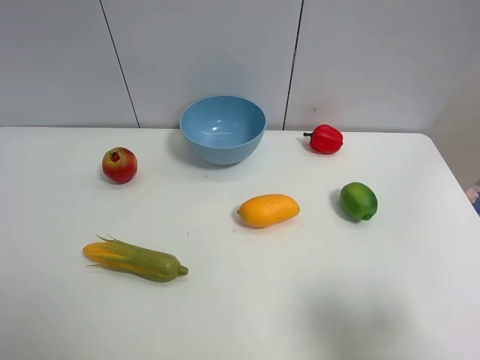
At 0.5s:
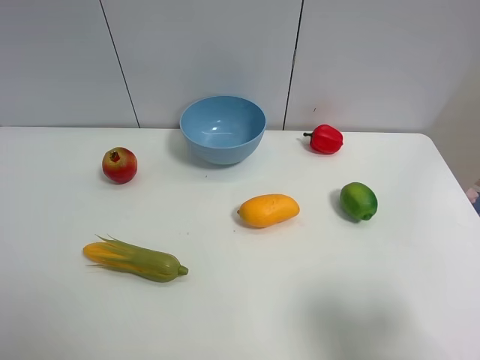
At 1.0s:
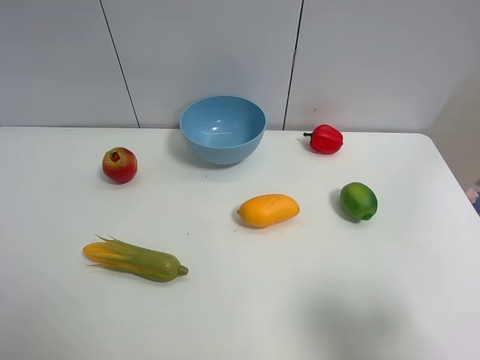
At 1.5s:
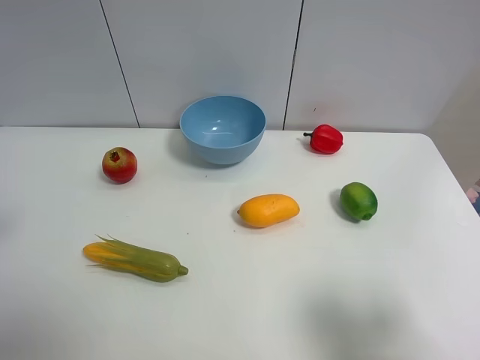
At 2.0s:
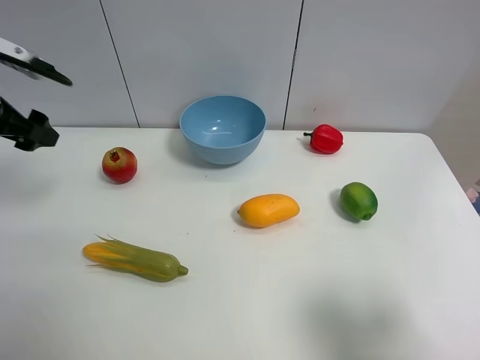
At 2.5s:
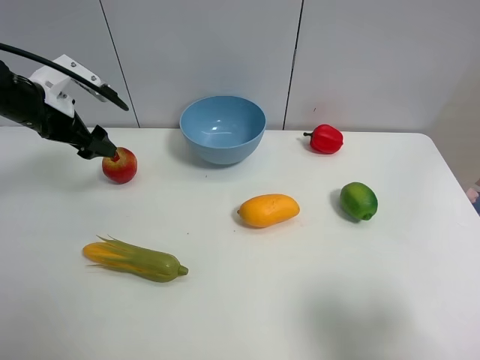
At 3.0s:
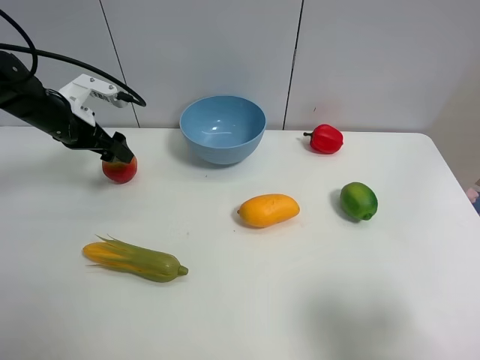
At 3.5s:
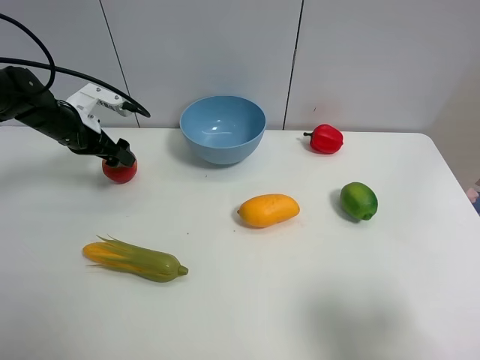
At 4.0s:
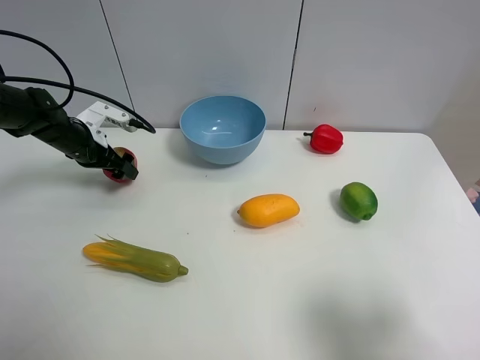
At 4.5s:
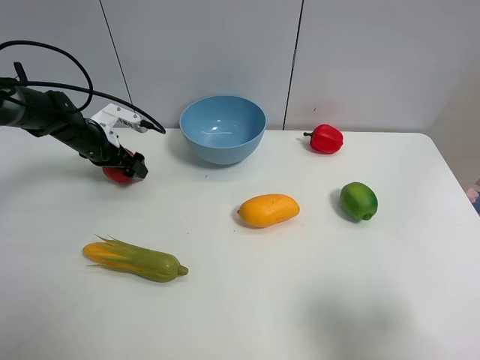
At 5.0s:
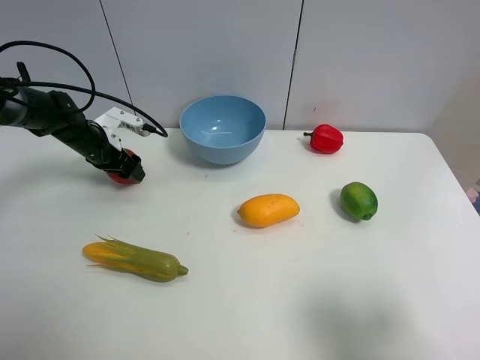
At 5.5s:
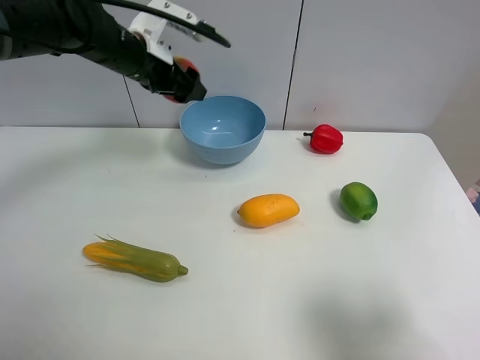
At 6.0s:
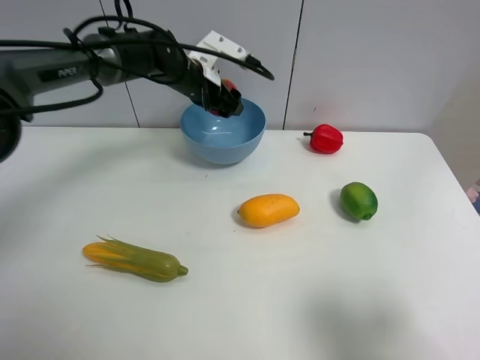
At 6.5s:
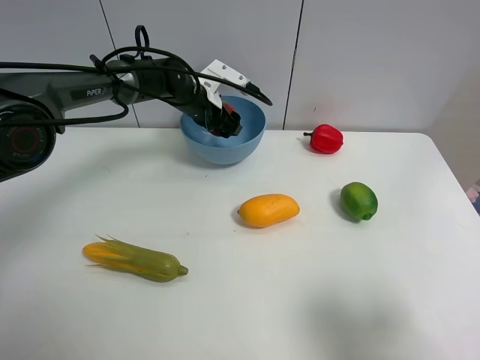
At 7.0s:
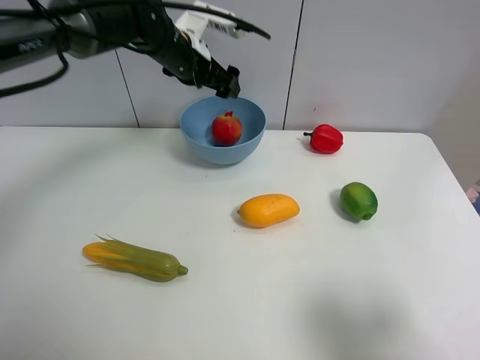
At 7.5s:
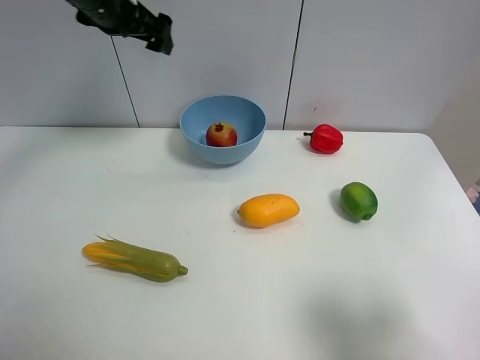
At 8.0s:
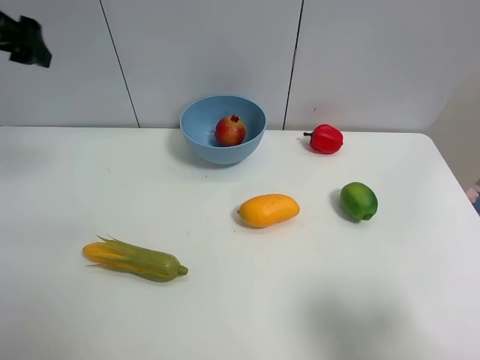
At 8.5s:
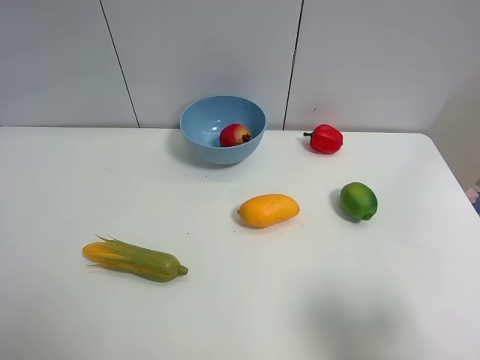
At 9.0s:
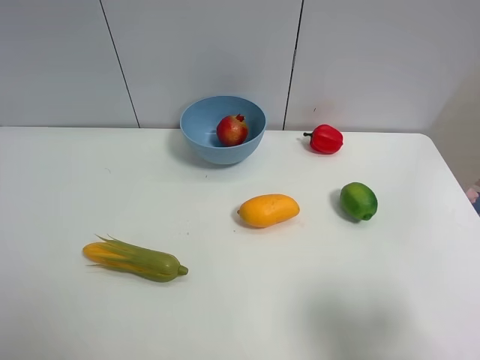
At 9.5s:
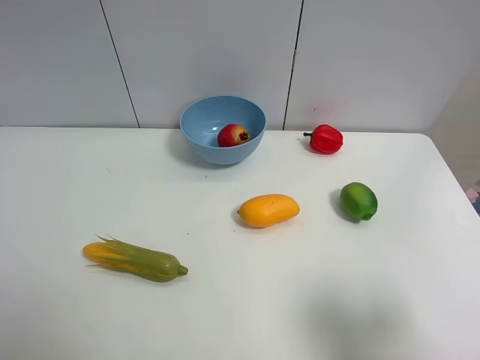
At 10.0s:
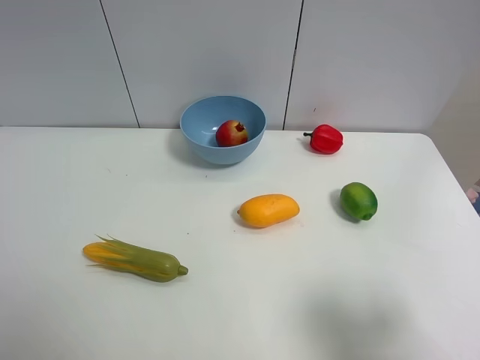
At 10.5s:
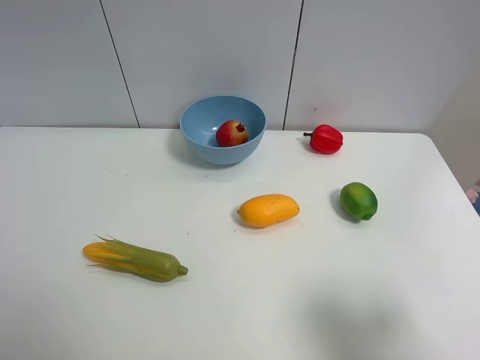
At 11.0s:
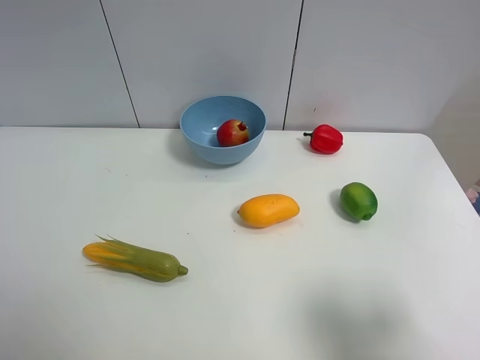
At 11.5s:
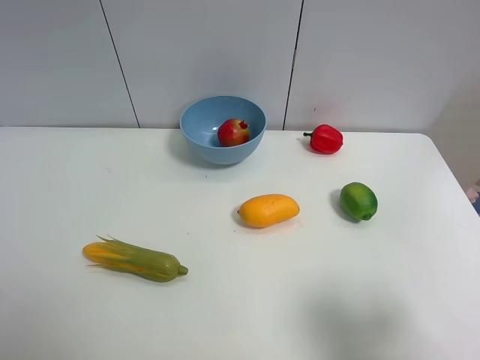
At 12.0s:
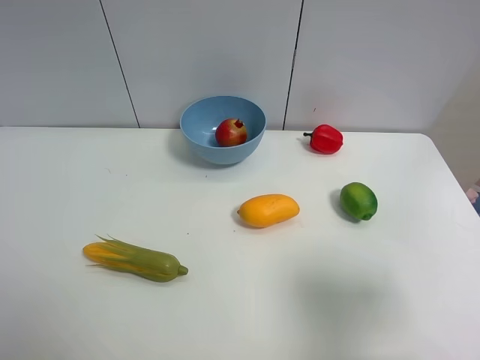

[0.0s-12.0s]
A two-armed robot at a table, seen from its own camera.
Task of the whole recording: Put the three fruits on the table into a bowl.
Step, 0.0s to 4.5s: Grasp the pomegranate with left gripper.
Step, 5.0s to 6.5s: Place the pomegranate in the blue bowl with left gripper.
0.0s to 2.0s: The left gripper heads forward, covering approximately 30 cm.
2.0s to 4.0s: The left gripper moves downward and forward, approximately 20 cm.
4.0s to 6.0s: The left gripper shifts some 20 cm to the right, and closes up.
6.0s to 8.0s: The left gripper travels to the left, upward and backward by about 35 cm, and opens.
8.0s to 10.0s: The left gripper shifts some 30 cm backward.
10.0s to 12.0s: The right gripper is displaced forward by approximately 5 cm.

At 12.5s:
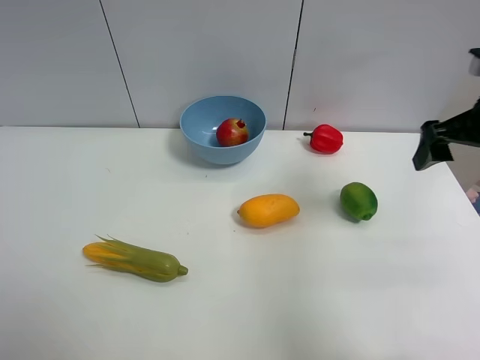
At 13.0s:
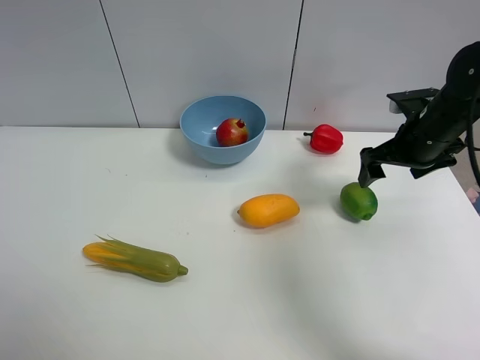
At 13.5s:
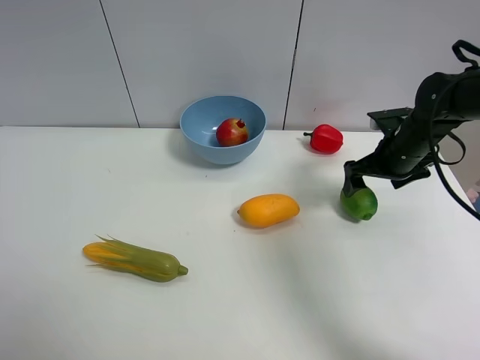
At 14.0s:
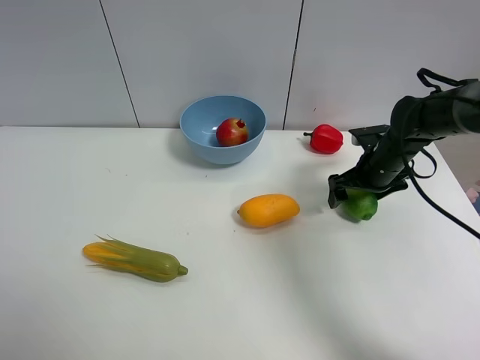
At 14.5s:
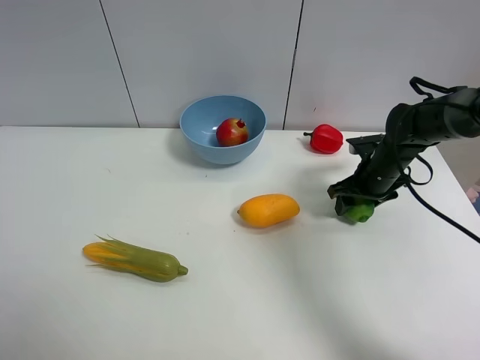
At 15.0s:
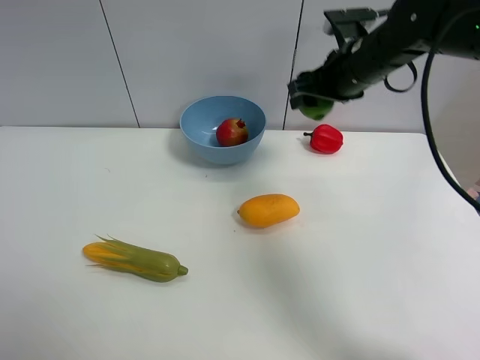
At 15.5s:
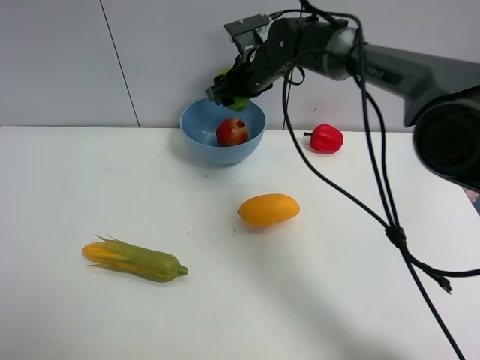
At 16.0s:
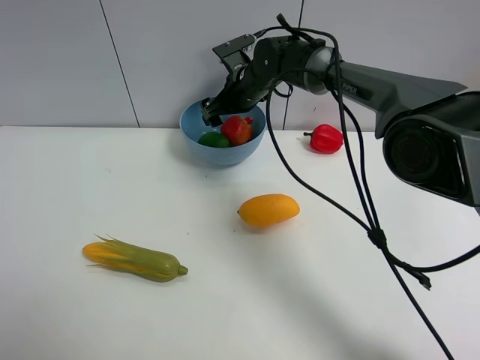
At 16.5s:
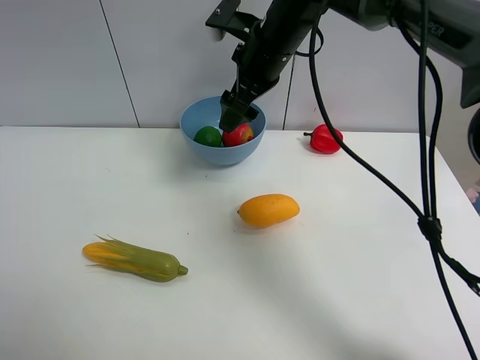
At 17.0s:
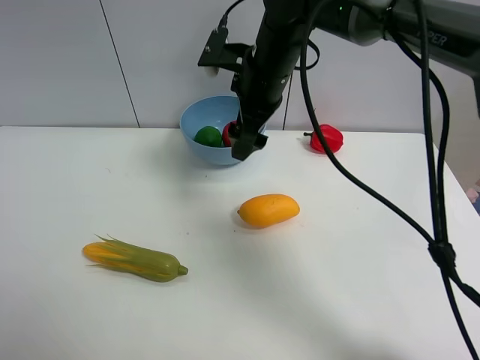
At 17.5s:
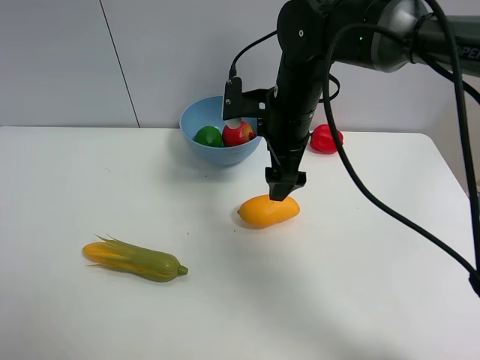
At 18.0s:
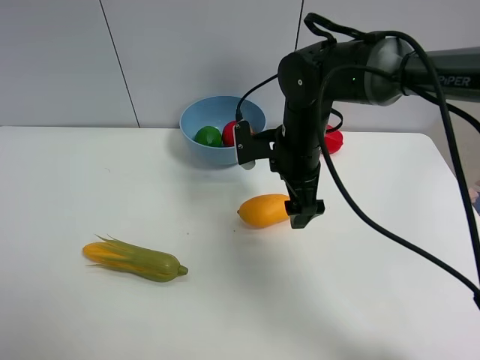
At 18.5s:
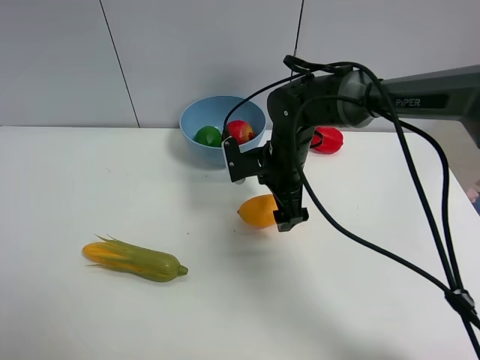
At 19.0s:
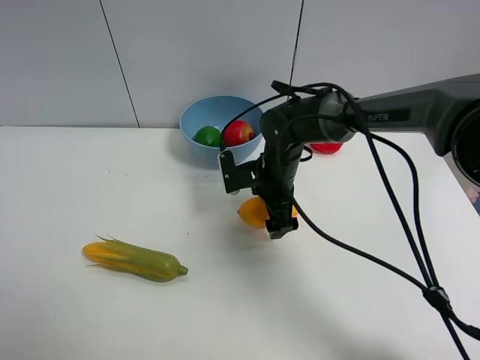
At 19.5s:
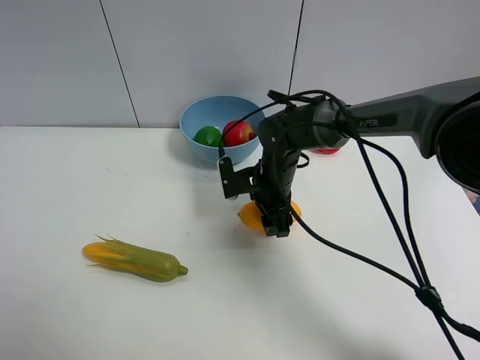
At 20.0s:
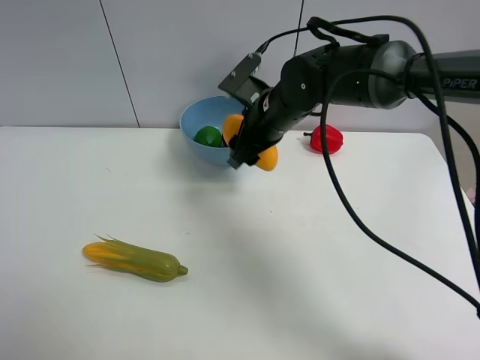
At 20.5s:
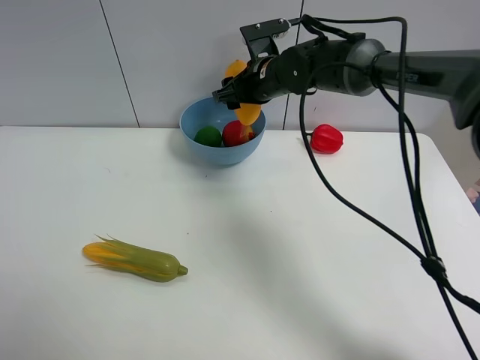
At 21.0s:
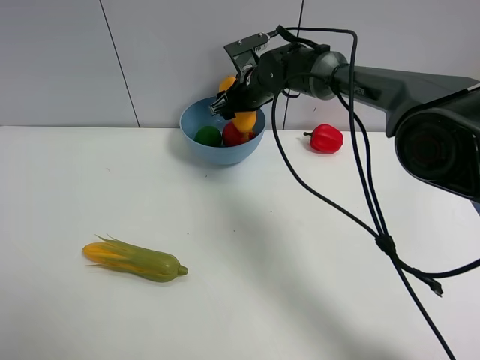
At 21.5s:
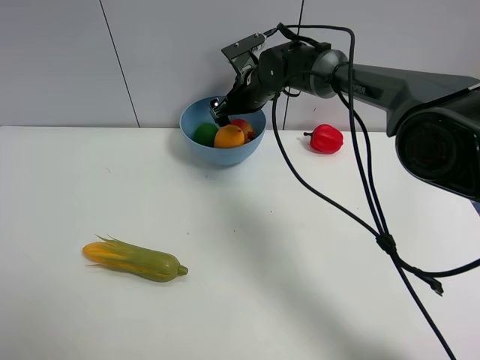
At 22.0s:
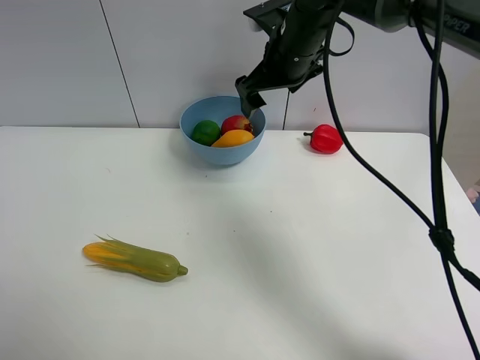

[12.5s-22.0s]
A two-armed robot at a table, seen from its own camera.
Task of the whole recording: Put the three fruits on the table into a bowl.
Step, 12.5s to 14.5s: Grasp the green lemon with right gripper.
Step, 15.0s to 15.5s: Place the green lemon in the blue bowl with right gripper.
Step, 16.0s to 19.5s: Grasp the mango with right gripper.
Step, 20.0s to 21.5s: Place the mango in the blue bowl with right gripper.
12.5s to 14.5s: The right gripper shifts some 20 cm downward and forward, and closes.
14.5s to 16.5s: The right gripper travels to the left and upward by roughly 30 cm, and opens up.
16.5s to 18.0s: The right gripper moves downward and backward, approximately 15 cm.
18.0s to 20.0s: The right gripper moves roughly 10 cm downward and comes back, and closes up.
20.0s to 22.0s: The right gripper goes roughly 10 cm upward, travels forward and back again, about 10 cm each way, and opens up.

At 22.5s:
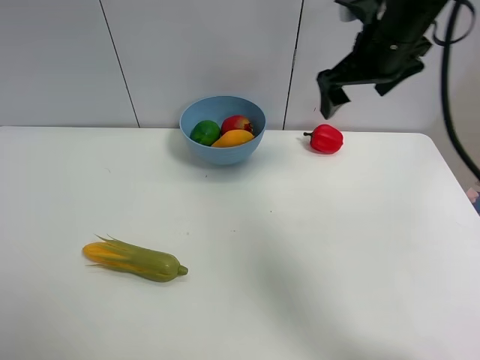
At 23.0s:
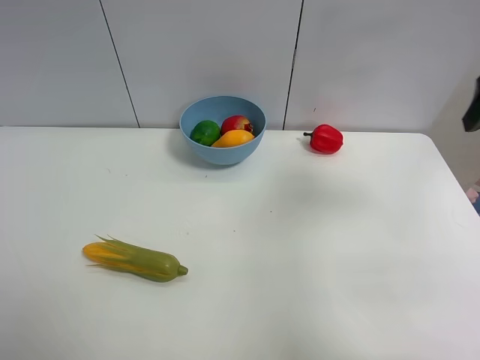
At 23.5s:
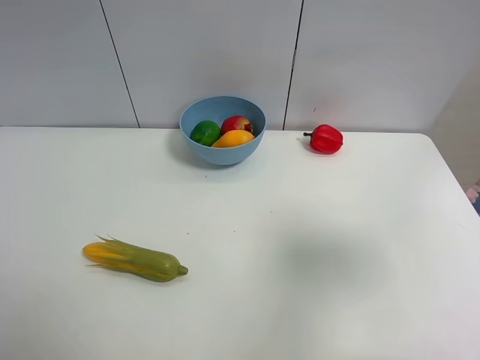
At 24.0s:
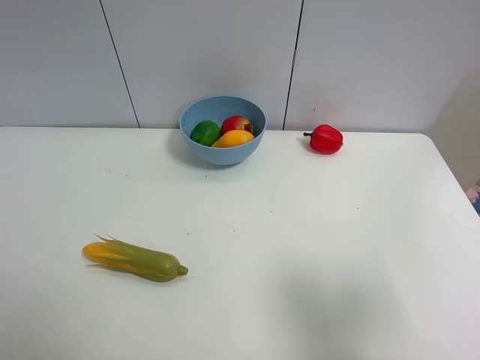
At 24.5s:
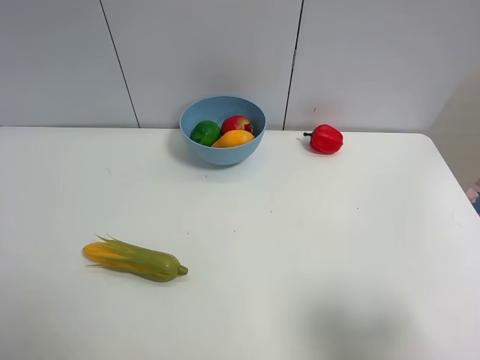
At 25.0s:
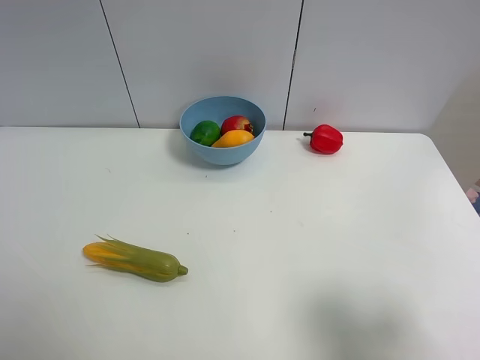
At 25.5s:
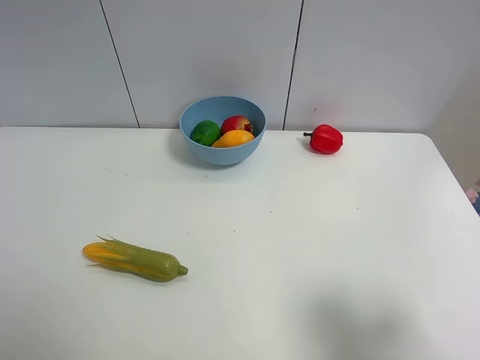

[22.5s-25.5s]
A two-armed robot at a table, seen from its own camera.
Task of the whole recording: Put the three fruits on the table into a bowl.
22.5s to 24.0s: The right gripper heads backward, covering some 35 cm.
24.0s to 25.5s: The grippers make only small movements.
